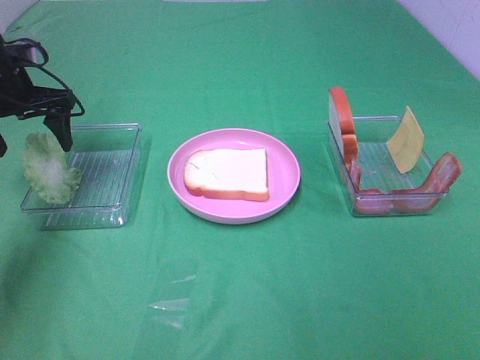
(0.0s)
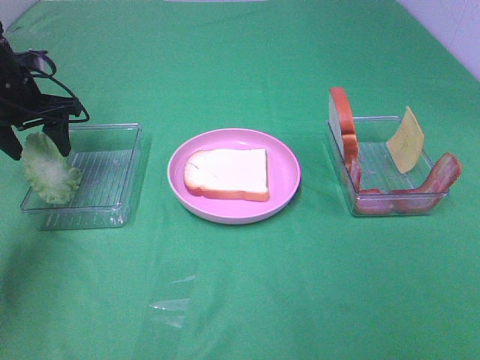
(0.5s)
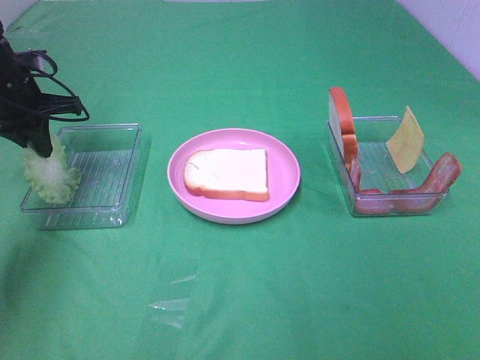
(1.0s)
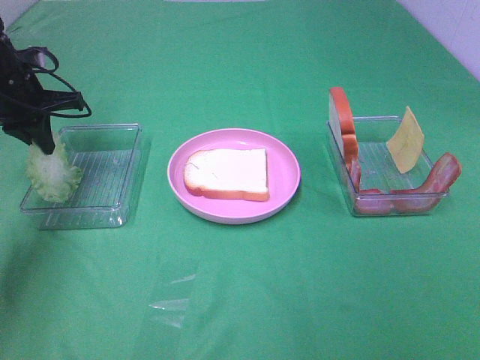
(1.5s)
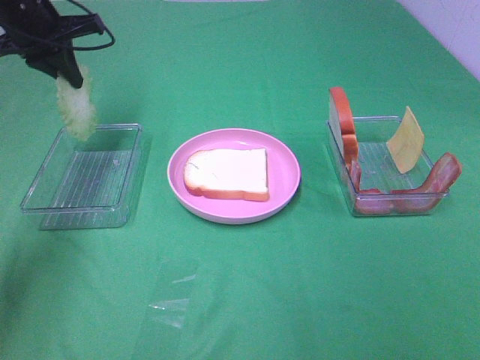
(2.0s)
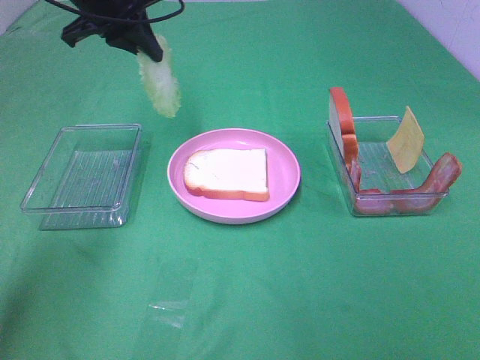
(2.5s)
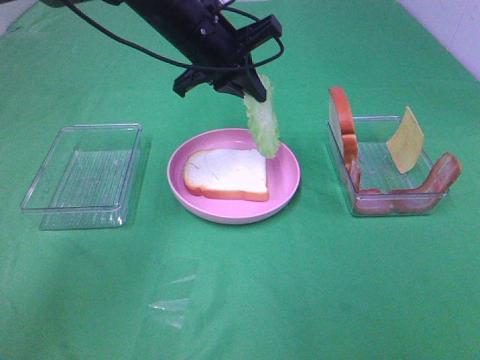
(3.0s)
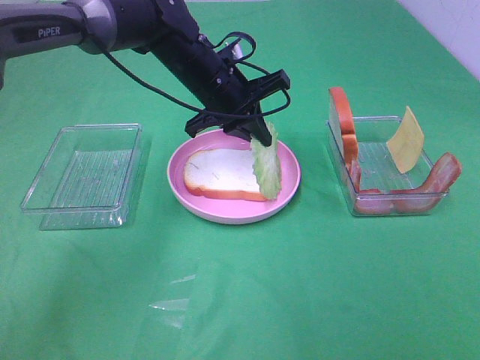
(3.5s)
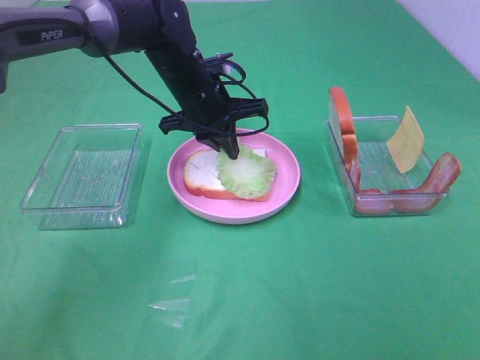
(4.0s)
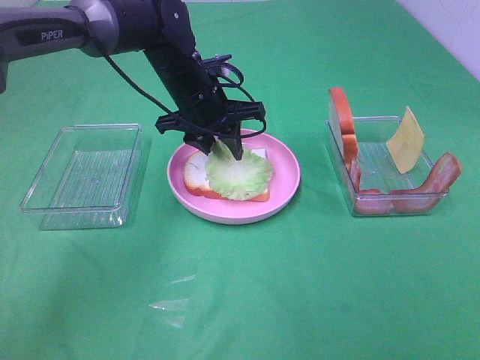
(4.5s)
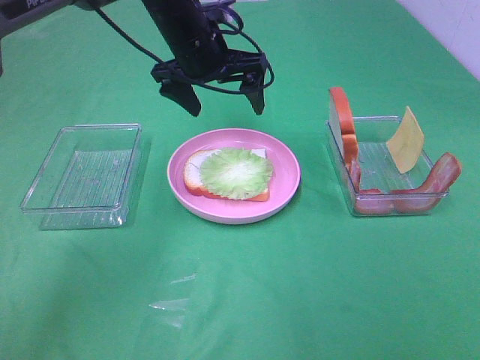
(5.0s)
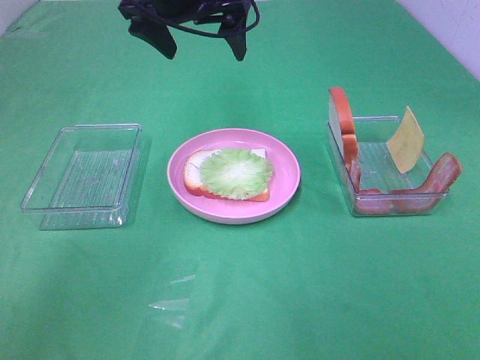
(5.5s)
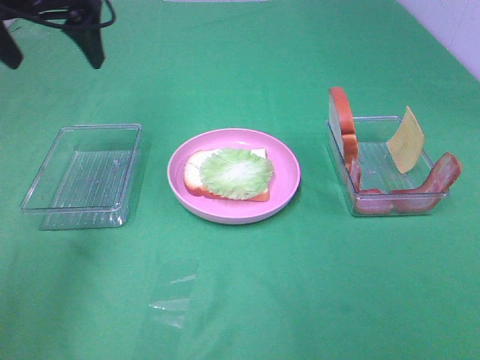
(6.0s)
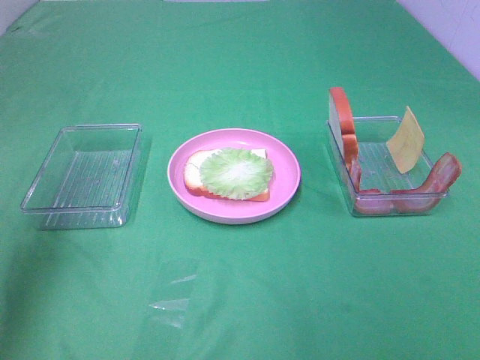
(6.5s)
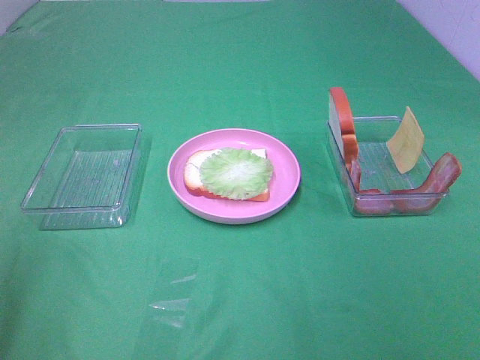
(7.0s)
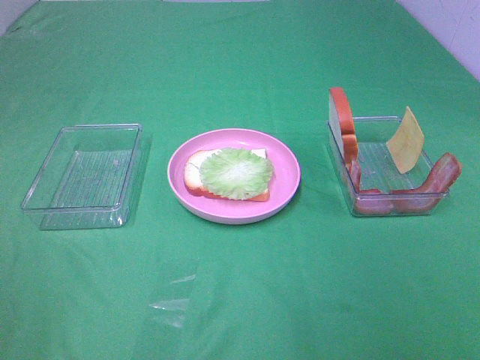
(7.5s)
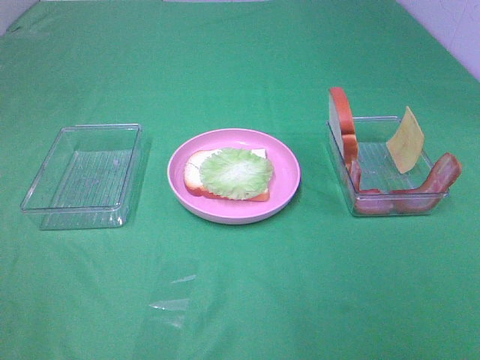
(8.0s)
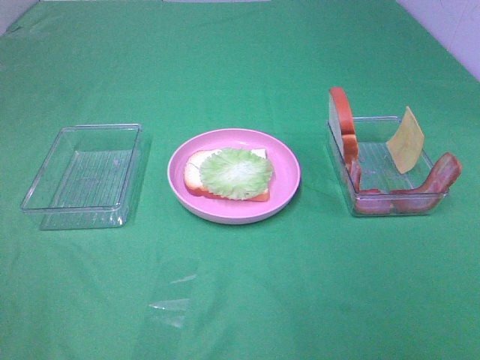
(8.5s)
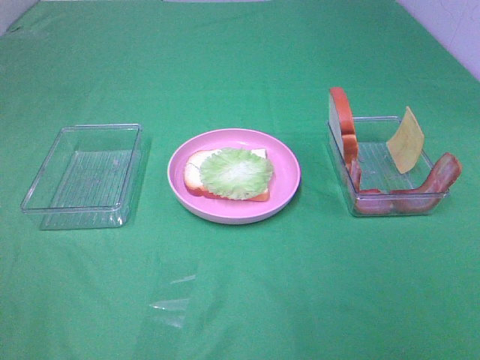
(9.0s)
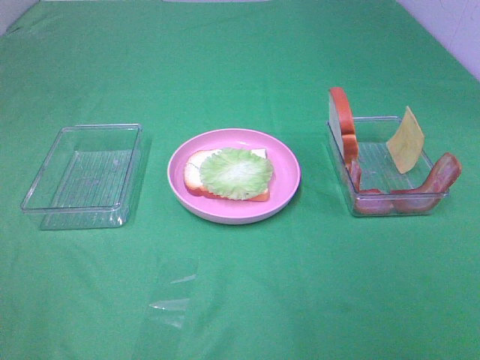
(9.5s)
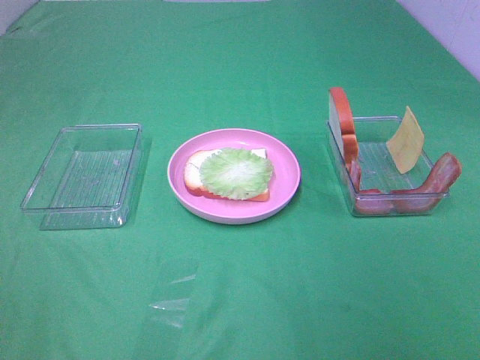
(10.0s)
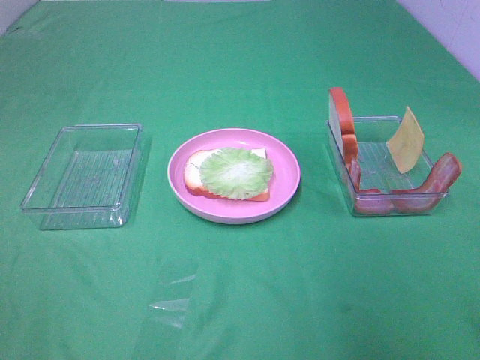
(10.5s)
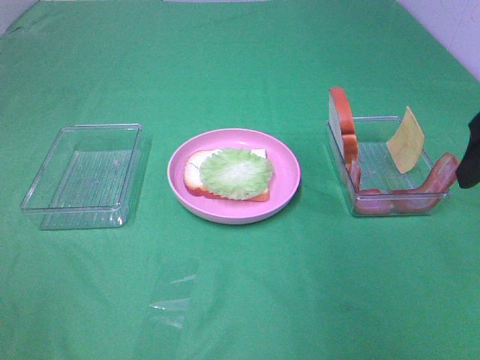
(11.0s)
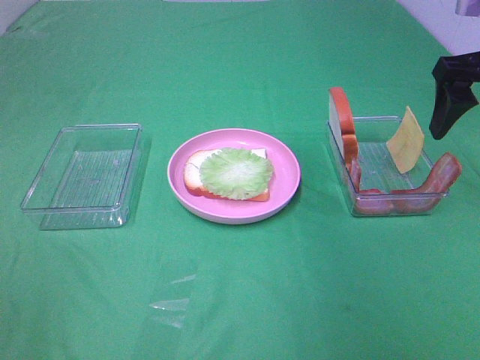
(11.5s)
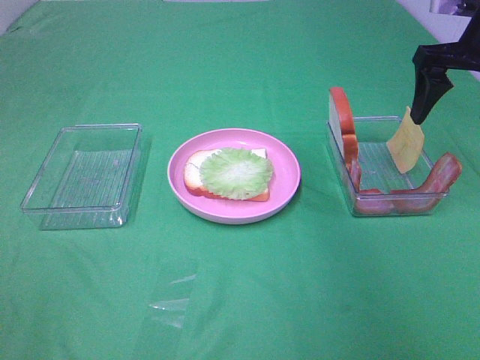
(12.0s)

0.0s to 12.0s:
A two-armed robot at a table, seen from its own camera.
Task of the whole recording: Make sandwiches.
Step, 2.0s to 4.5s: Left hand:place the lettuce slice on the bread slice.
0.0s to 2.0s: The left gripper travels upward by some 5 cm, and closes up.
2.0s to 4.0s: The left gripper shifts about 25 cm to the right and downward.
4.0s to 6.0s: The left gripper shifts approximately 25 cm to the left and upward, and opens its fingers.
6.0s to 8.0s: The left gripper is displaced backward by some 40 cm.
10.0s to 12.0s: The right gripper moves forward, approximately 35 cm.

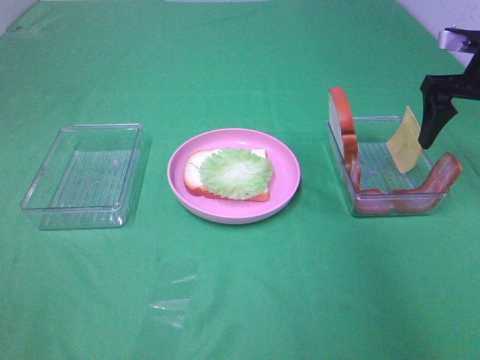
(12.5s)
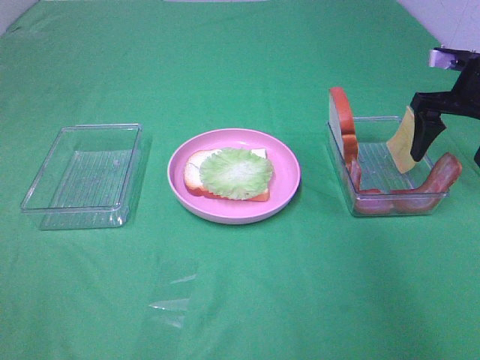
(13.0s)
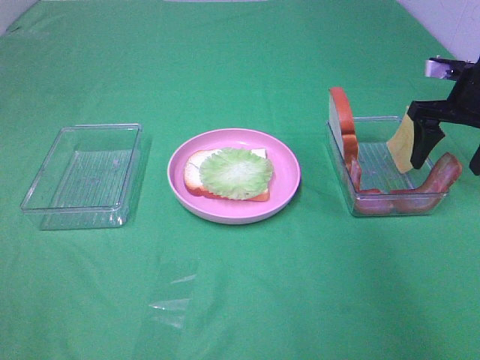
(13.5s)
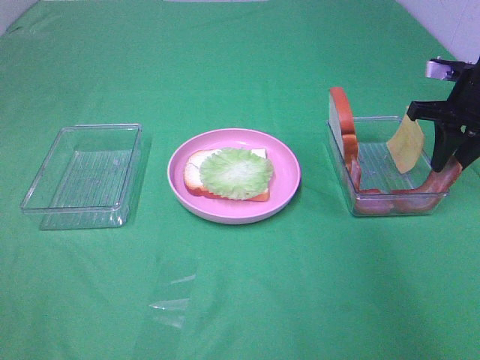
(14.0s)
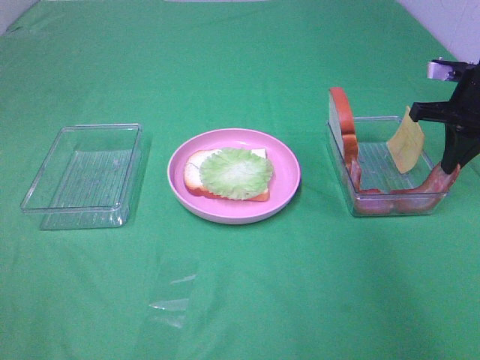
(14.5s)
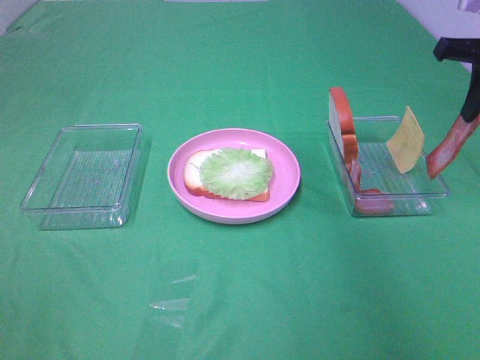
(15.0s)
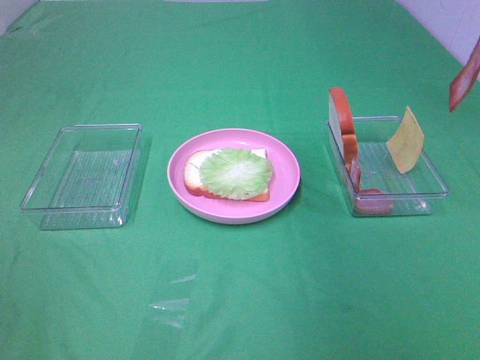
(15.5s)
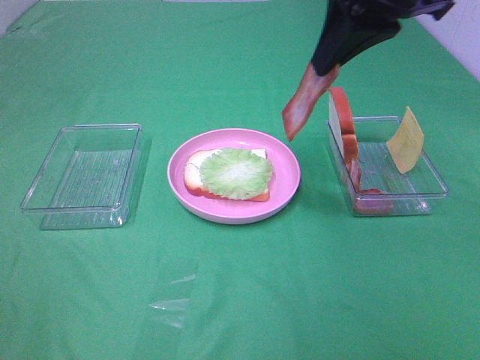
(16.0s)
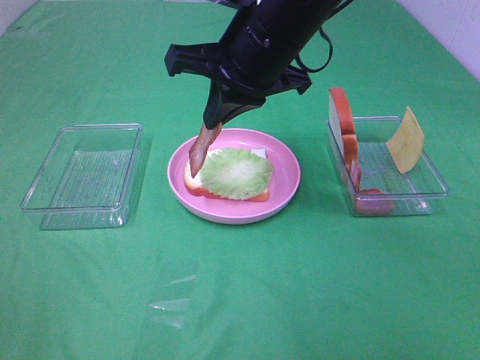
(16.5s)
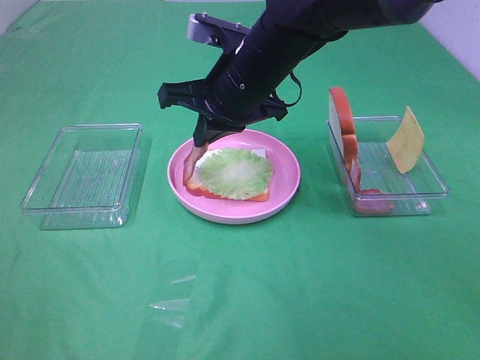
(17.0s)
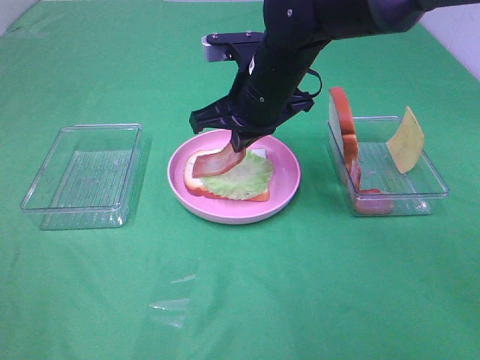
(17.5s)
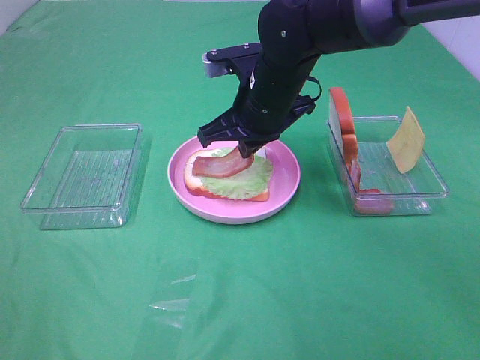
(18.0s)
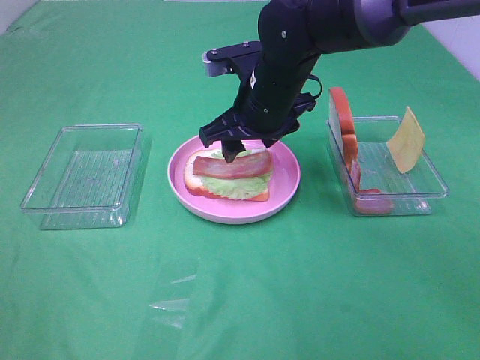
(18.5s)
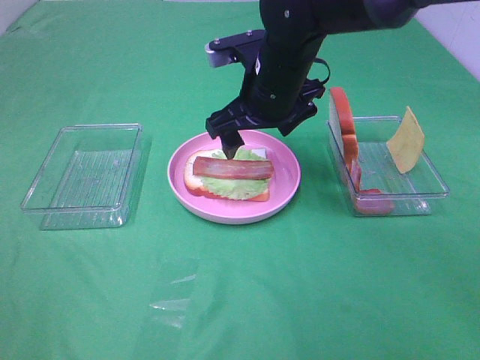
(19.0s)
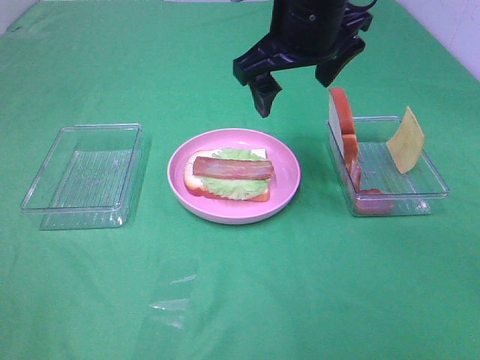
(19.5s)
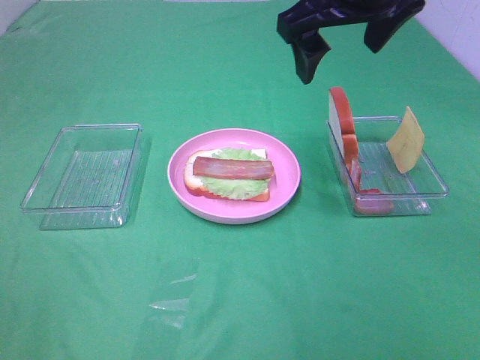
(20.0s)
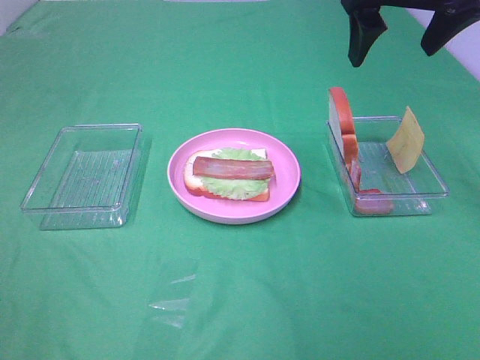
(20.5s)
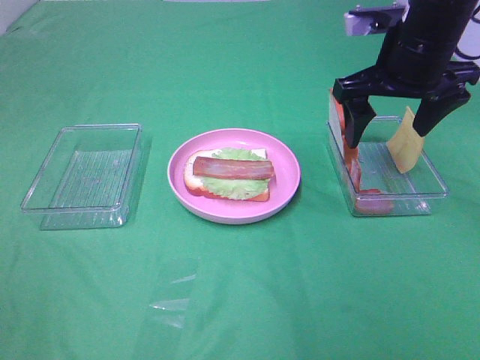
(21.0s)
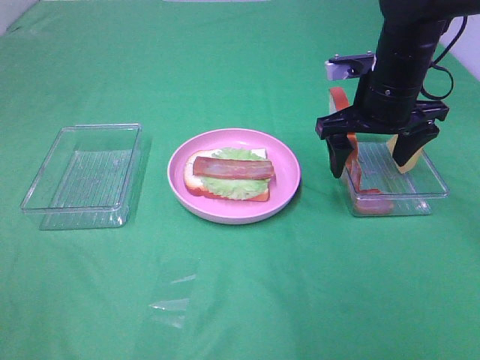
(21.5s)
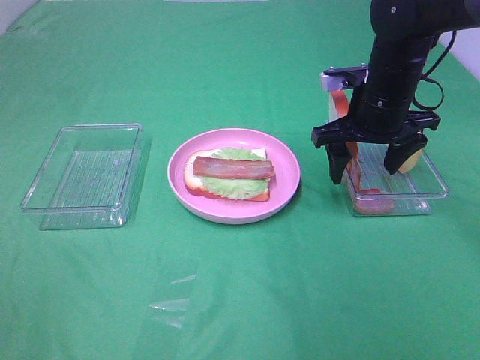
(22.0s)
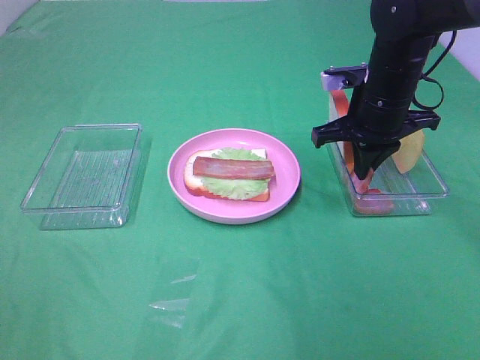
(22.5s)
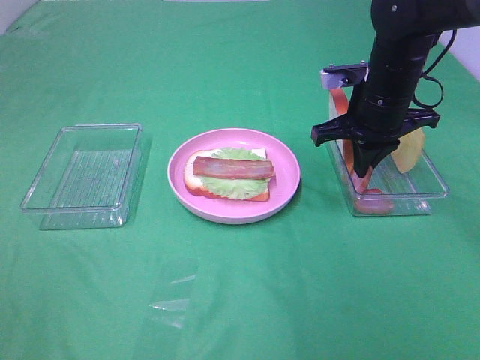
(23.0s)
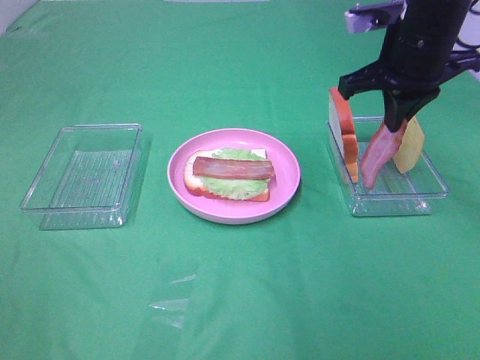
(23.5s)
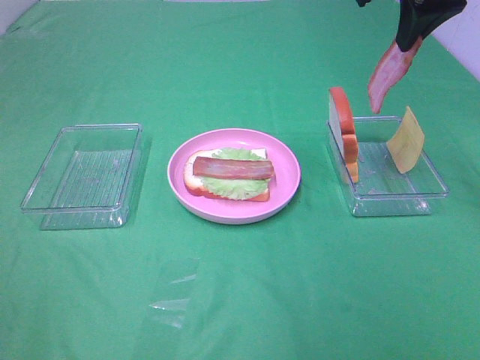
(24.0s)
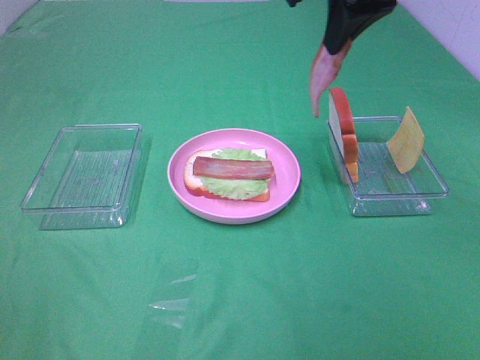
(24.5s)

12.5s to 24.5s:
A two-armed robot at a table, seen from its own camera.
Task of the whole recording: Make sandwiches.
Step, 12.5s to 14.5s: Right hand:grab the bacon.
Step, 15.0s to 19.0s: Right hand:place bacon on lettuce slice.
Step, 19.5s to 23.0s: Right hand:grab the bacon.
12.5s to 14.5s: The right gripper closes.
14.5s to 16.5s: The right gripper shifts some 30 cm to the left.
16.5s to 18.5s: The right gripper goes roughly 10 cm downward, and opens its fingers.
18.5s to 20.5s: The right gripper moves upward and to the right, some 20 cm.
20.5s to 22.5s: The right gripper shifts approximately 15 cm downward, and closes.
22.5s to 24.5s: The right gripper is displaced upward by about 20 cm.

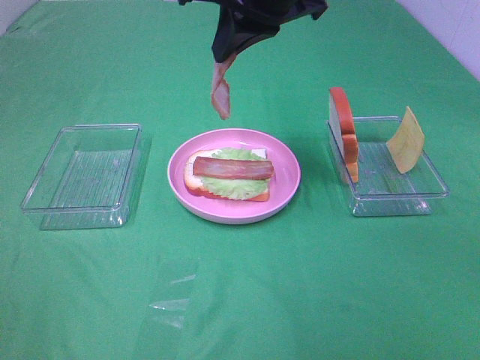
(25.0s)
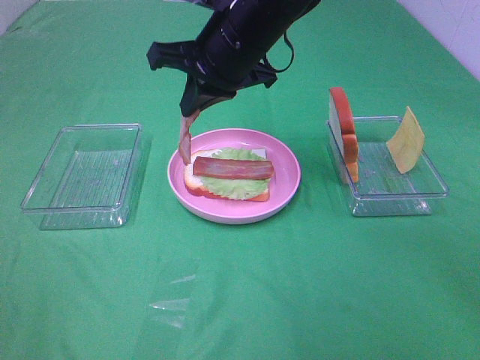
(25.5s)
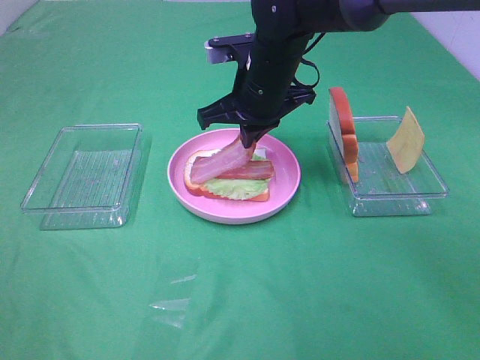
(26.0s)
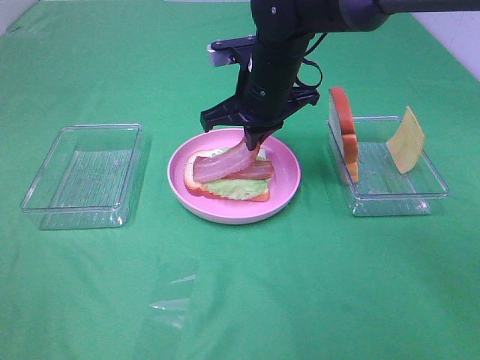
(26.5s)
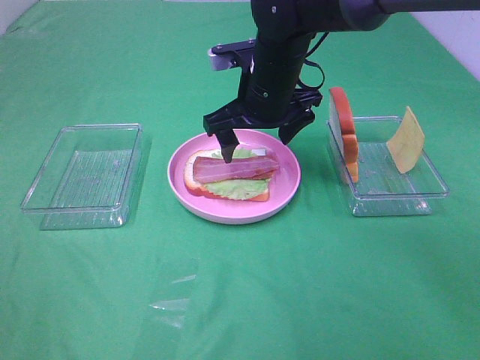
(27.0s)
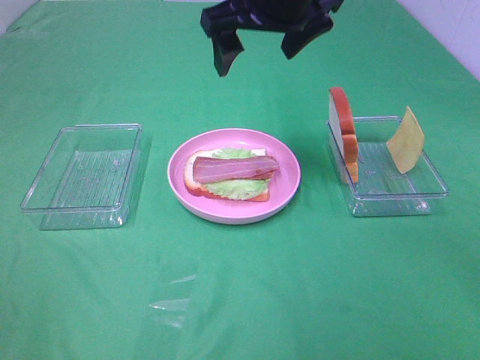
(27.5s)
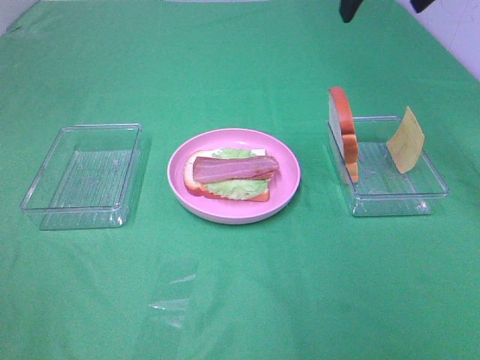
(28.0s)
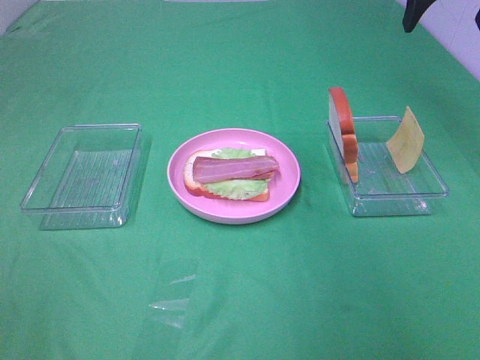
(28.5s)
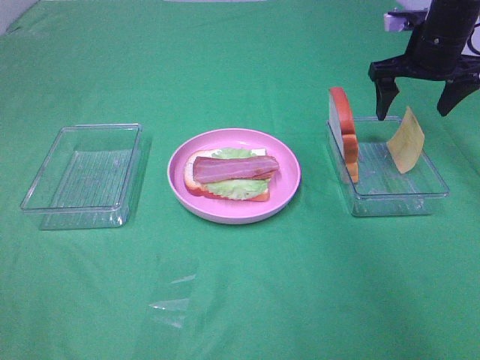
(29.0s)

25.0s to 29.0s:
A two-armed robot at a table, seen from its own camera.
Task of the whole recording: Make sandwiches.
Step, 25.0s to 27.0s: Right hand:place bacon on lettuce slice.
25.0s to 27.0s: The right gripper travels downward by approximately 15 cm, and opens up.
27.0s to 29.0s: The right gripper goes approximately 25 cm to the right.
